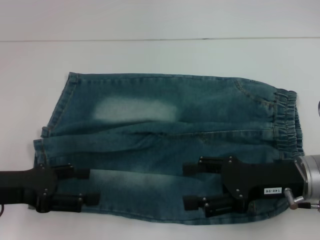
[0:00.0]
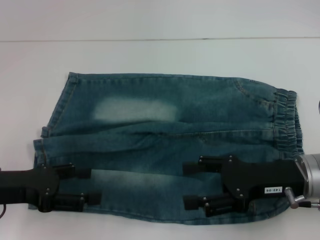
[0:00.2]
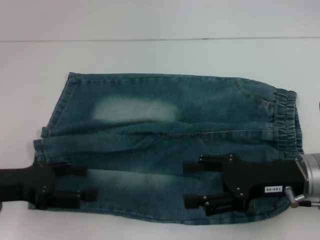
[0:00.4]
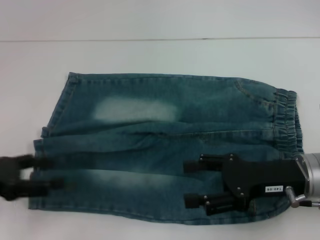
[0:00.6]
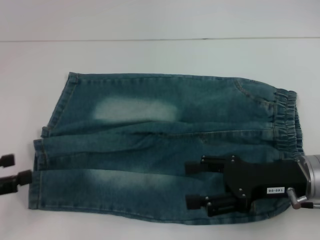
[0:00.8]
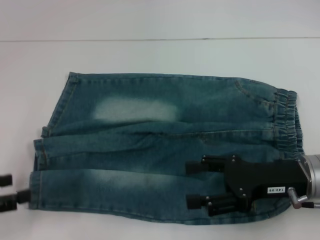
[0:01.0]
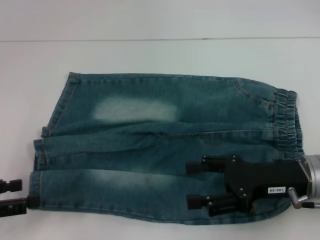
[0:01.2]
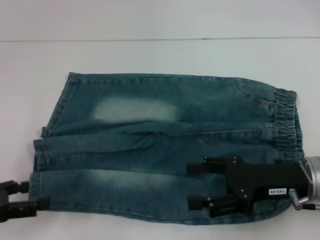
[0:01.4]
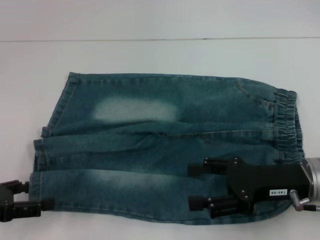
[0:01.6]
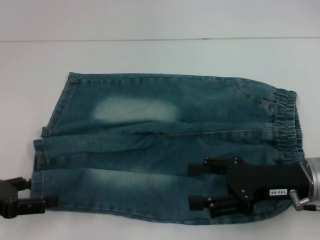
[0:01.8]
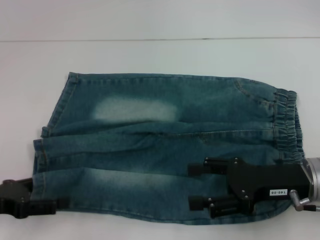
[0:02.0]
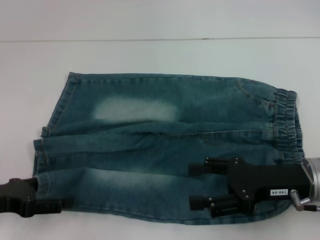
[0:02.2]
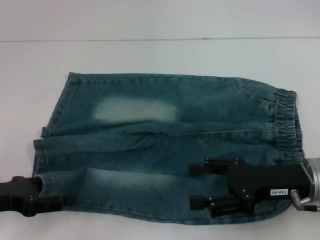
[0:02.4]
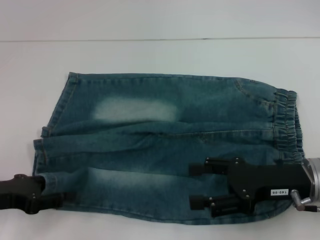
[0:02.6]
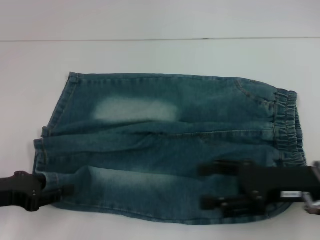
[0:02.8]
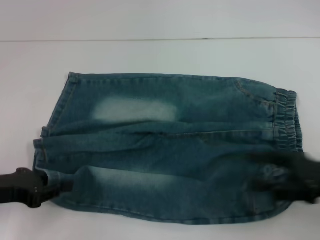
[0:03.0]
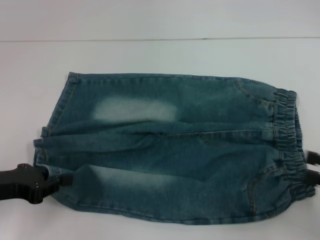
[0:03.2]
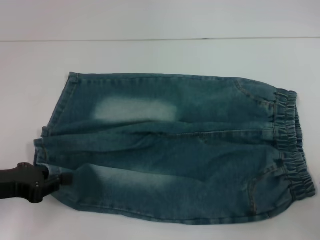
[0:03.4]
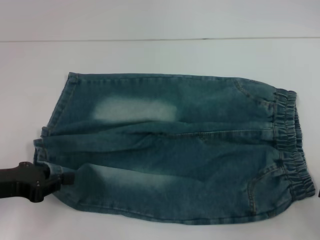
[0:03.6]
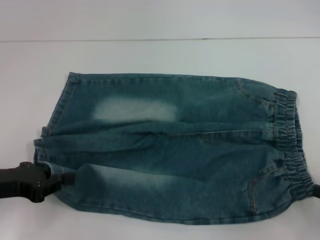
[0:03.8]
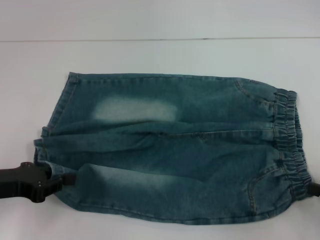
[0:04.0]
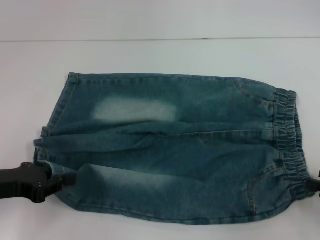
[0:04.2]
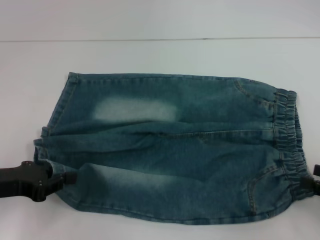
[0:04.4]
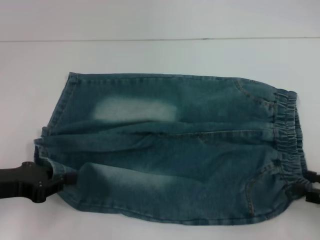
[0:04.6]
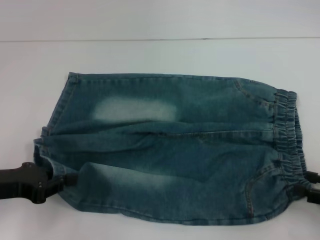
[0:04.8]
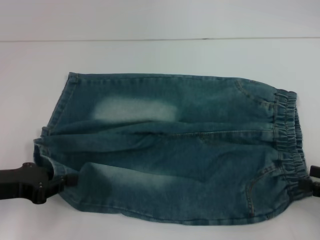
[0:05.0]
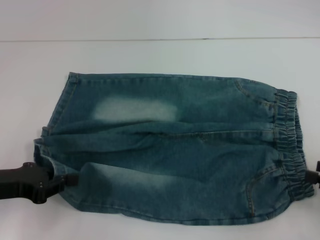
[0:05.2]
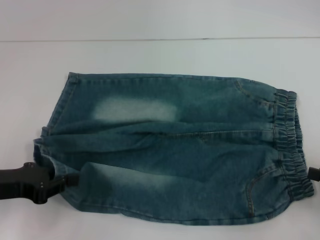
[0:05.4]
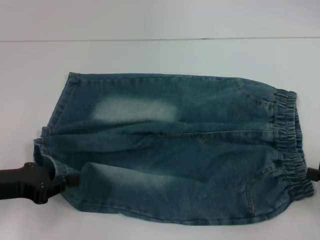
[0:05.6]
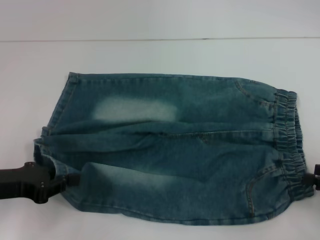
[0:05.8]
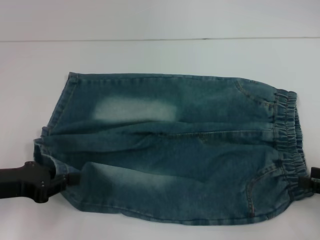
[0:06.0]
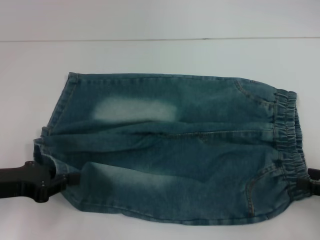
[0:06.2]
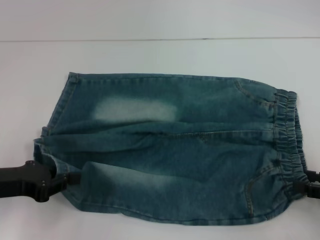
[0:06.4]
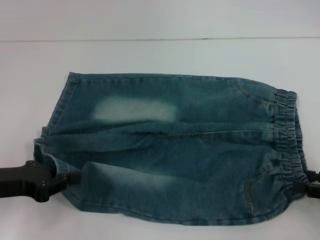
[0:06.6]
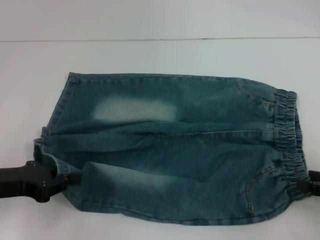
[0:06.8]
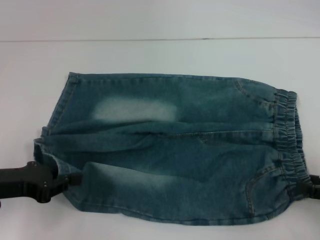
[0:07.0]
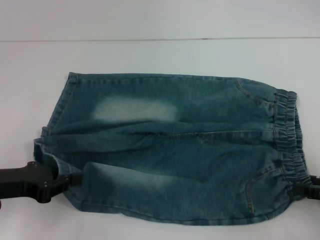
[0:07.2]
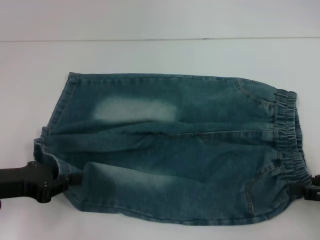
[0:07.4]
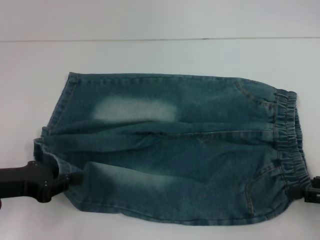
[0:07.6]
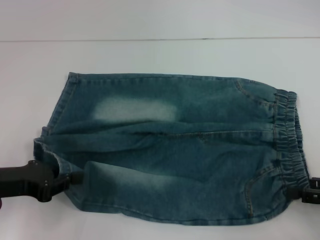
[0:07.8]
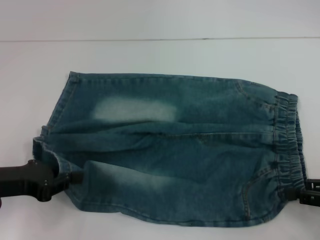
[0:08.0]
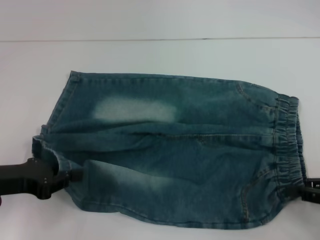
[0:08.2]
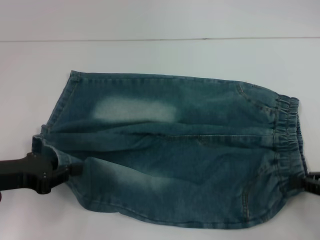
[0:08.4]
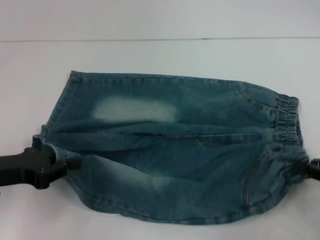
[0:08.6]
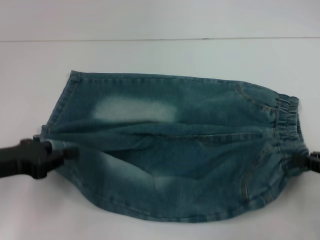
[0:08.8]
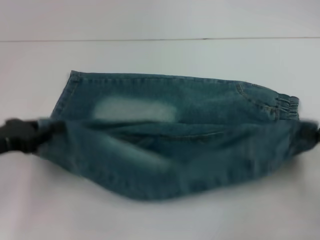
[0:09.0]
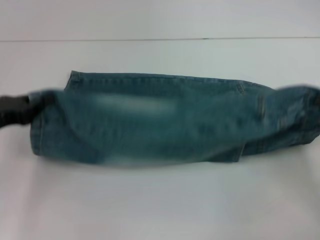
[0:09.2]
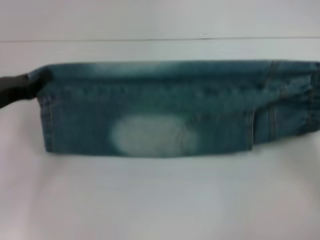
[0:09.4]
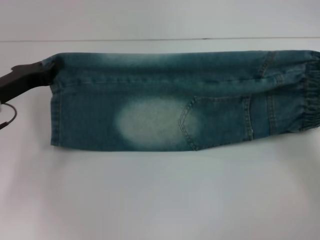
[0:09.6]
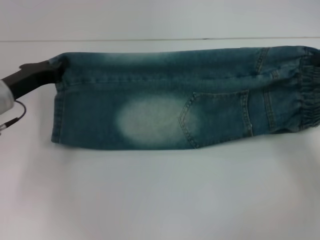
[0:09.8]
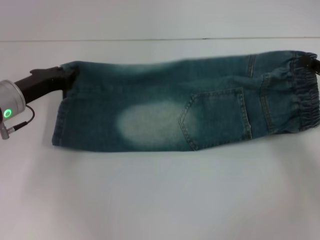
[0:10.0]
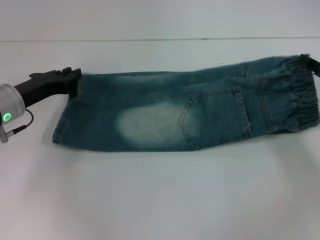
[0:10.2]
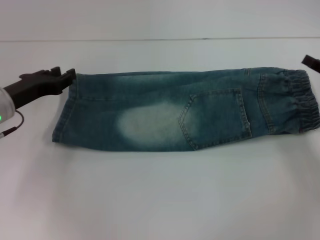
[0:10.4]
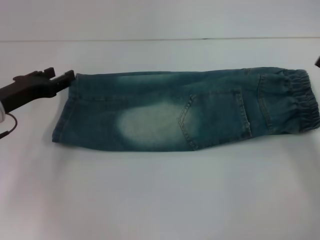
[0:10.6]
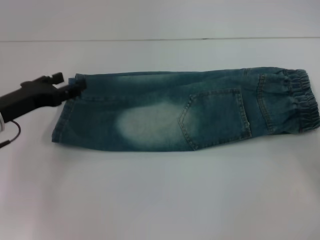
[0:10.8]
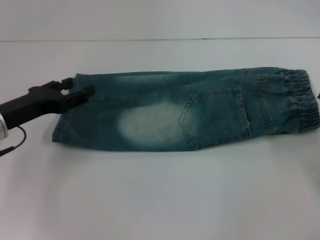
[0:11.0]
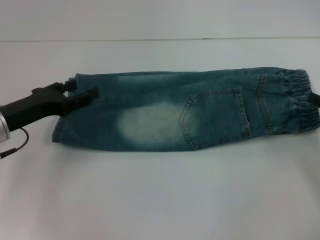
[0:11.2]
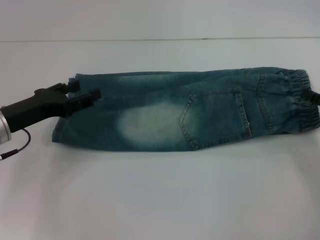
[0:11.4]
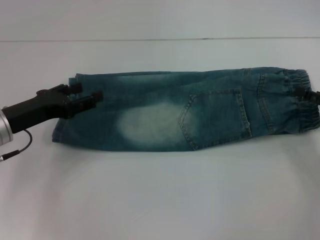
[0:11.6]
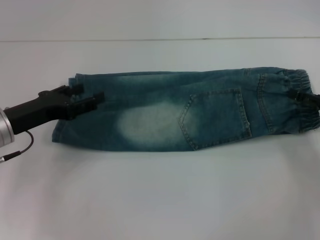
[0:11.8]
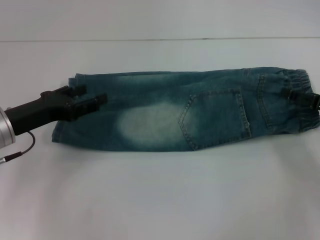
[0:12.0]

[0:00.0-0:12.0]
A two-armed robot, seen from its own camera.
Step, 0:00.0 to 0:03.0: Grab the lower left pant leg with your left hand.
Step, 0:03.2 to 0:06.8: Hold the lower right waistband with your right hand.
Step, 0:07.0 to 0:10.4: Fold upward with your right hand.
0:00.0 to 0:01.6: The left gripper shifts roughly 5 cm to the left.
0:01.6 to 0:03.0: The left gripper closes its fingers. Meanwhile the right gripper is displaced to the right by about 5 cm.
0:03.0 to 0:04.4: The right gripper shifts roughly 10 cm to the right.
0:04.4 to 0:07.6: There are only small adjustments of the grippers.
0:07.6 to 0:09.0: The right gripper closes up.
0:09.0 to 0:10.4: Both grippers travel together forward, roughly 10 cm.
0:10.4 to 0:12.0: The left gripper opens, while the right gripper opens up.

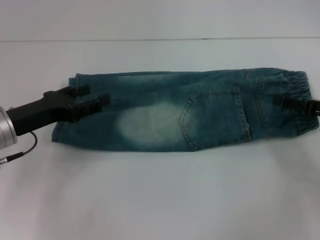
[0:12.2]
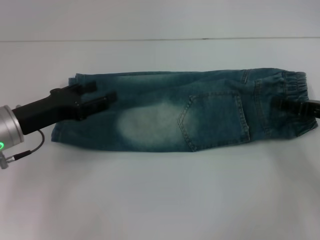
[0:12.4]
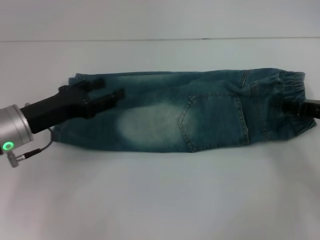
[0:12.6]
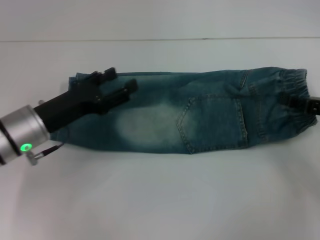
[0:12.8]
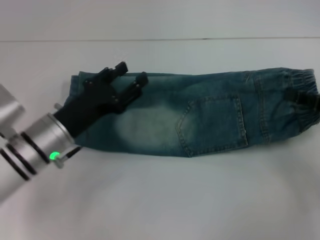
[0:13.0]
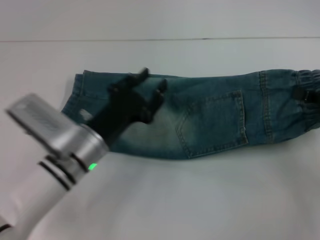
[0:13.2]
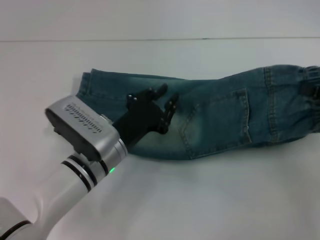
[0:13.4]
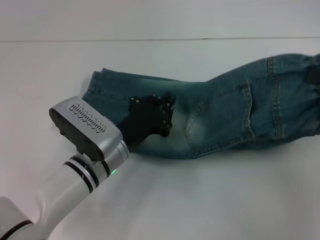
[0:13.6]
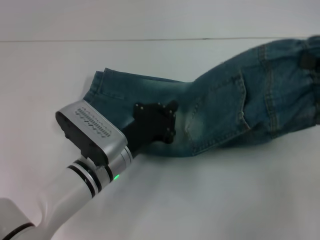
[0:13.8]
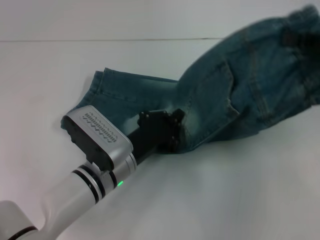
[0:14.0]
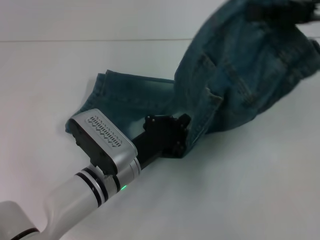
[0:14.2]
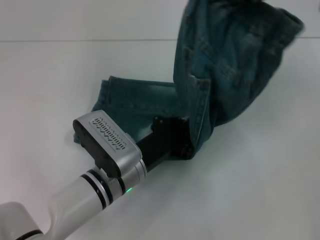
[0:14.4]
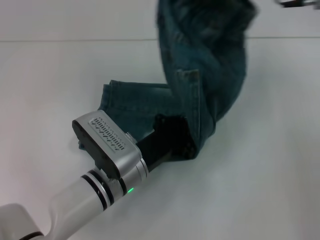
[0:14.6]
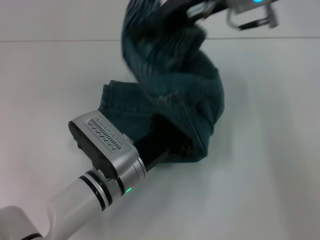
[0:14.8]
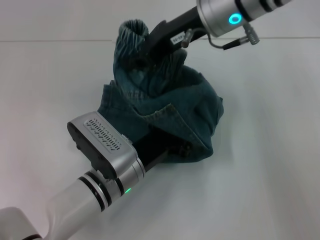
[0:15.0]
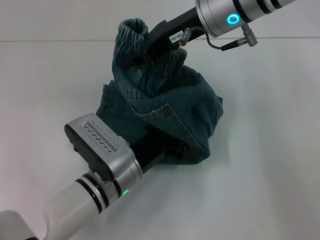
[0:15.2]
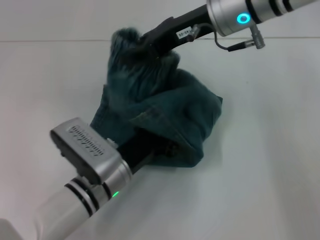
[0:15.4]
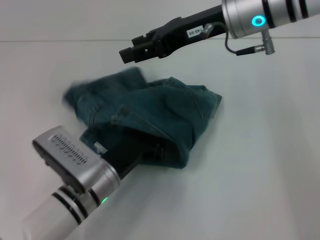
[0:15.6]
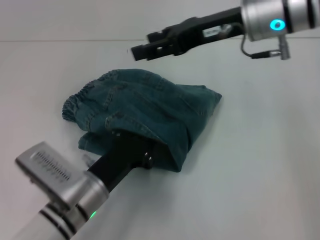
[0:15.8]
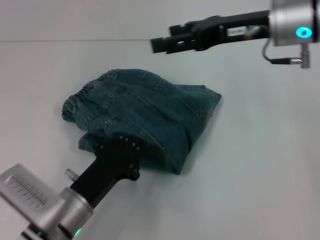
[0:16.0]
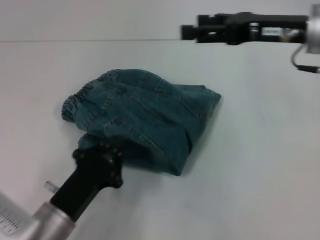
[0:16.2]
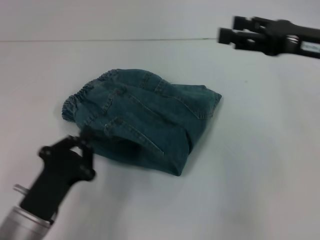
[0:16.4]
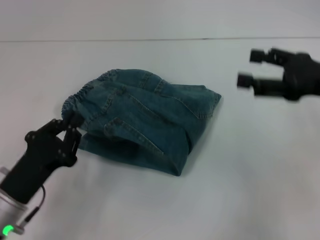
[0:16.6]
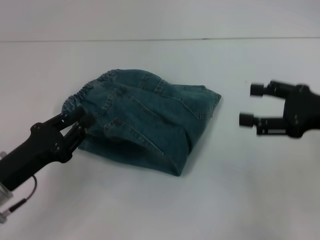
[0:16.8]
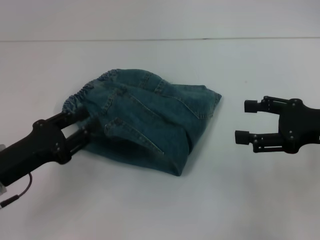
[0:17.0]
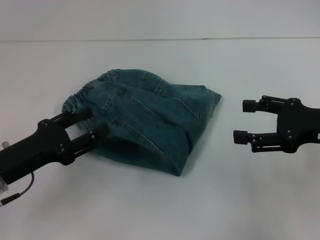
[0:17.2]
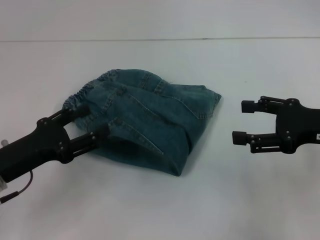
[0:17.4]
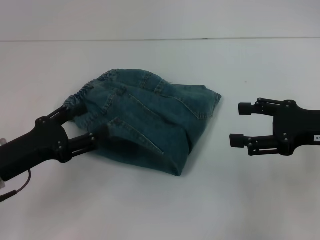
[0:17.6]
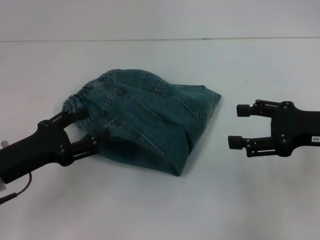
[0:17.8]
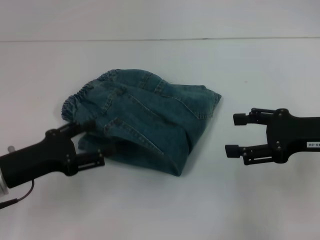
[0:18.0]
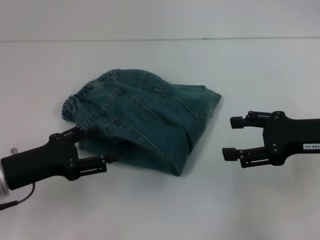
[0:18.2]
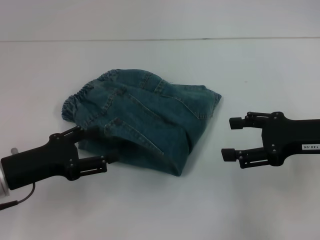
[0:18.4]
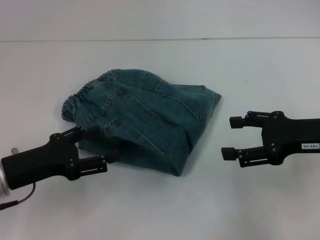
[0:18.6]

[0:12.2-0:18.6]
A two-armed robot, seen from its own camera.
Step, 0:12.4 to 0:16.0: Press the middle of the pants with your left hand.
Step, 0:16.2 to 0:16.6: Fold to the left with your right hand.
0:12.2 to 0:13.8: The right gripper moves upward, approximately 10 cm, and closes its fingers; the left gripper moves to the right and downward, about 15 cm, and closes up.
0:13.8 to 0:15.4: The right gripper heads to the left and forward, covering some 25 cm.
0:15.4 to 0:17.0: The right gripper shifts about 25 cm to the right, backward and downward, and opens its fingers; the left gripper goes roughly 15 cm to the left, and opens its fingers.
0:17.0 to 0:18.6: The left gripper opens its fingers.

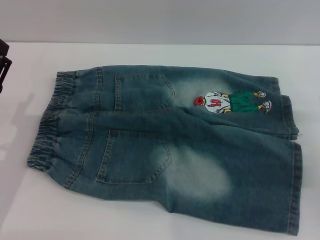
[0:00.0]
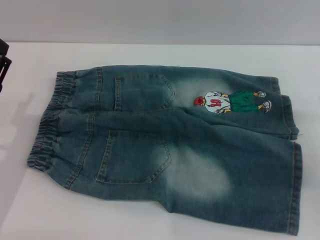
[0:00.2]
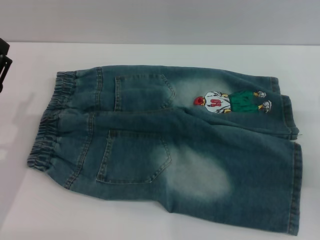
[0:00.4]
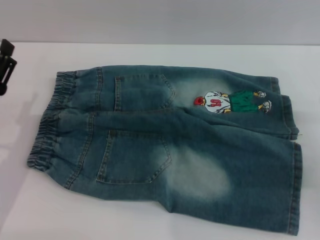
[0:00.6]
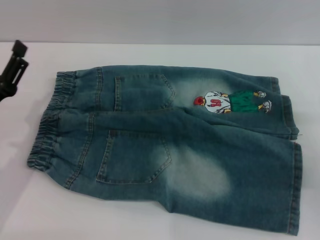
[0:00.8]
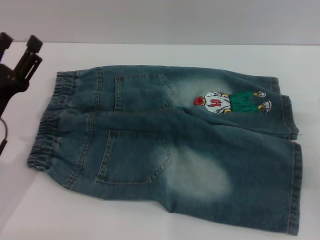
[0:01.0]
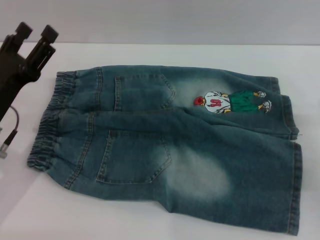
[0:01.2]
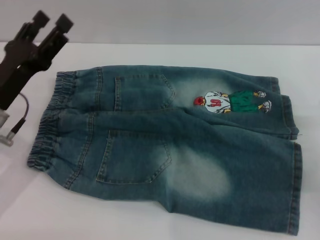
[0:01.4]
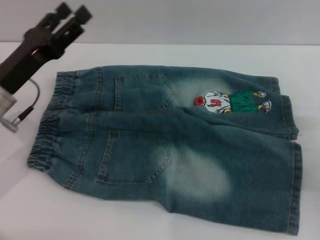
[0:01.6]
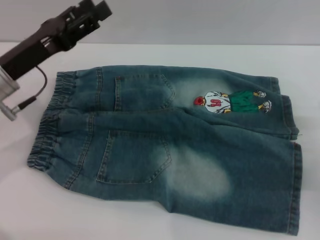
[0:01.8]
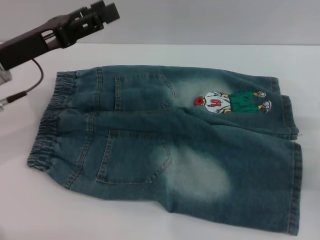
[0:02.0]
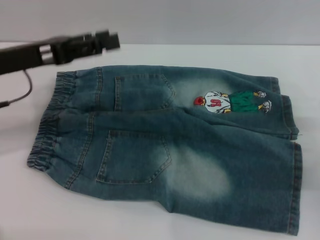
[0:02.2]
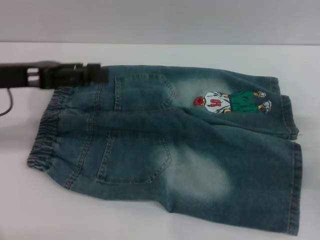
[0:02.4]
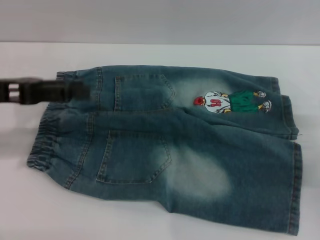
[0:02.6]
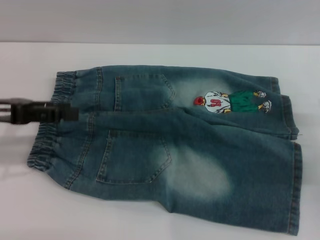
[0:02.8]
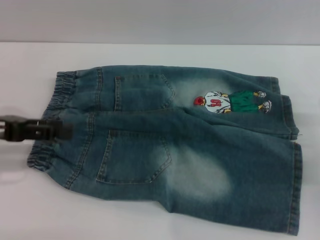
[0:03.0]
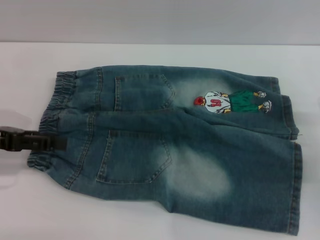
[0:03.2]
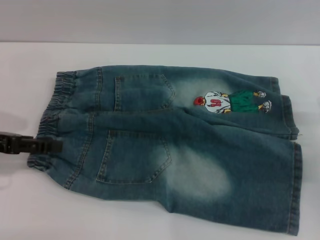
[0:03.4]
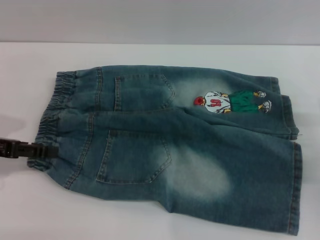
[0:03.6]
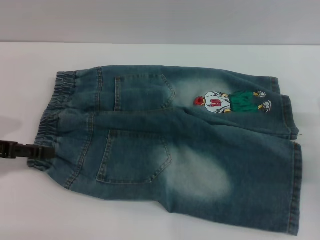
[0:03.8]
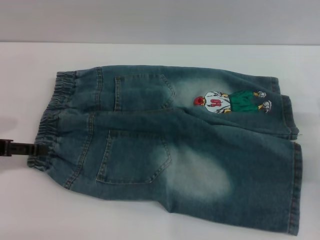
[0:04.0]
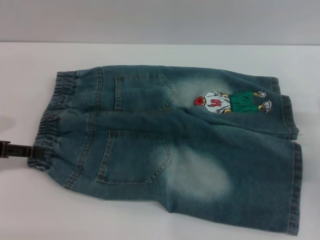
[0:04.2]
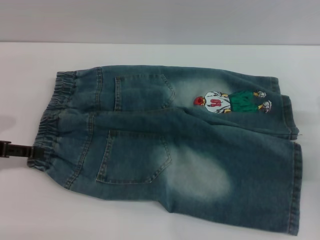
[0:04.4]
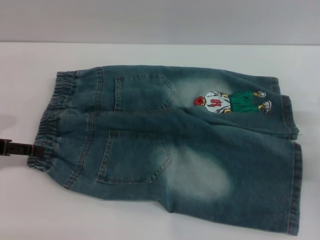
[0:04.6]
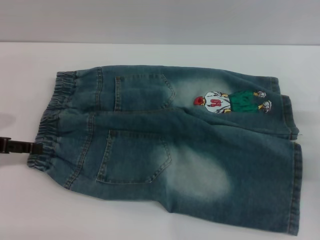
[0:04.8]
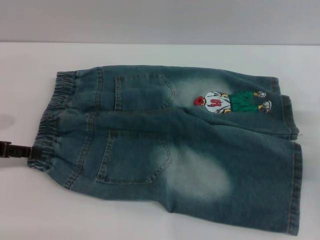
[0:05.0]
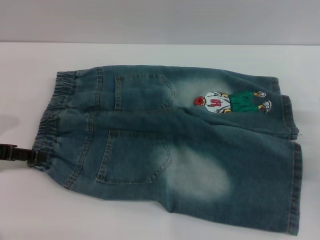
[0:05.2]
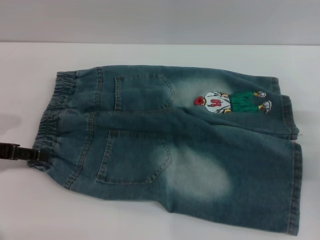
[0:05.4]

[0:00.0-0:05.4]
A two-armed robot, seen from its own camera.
0:00.0 to 0:01.4: The left gripper moves about 5 cm.
0:01.4 to 0:02.8: The left gripper shifts about 10 cm upward and to the left.
0:02.8 to 0:04.0: The left gripper ends up roughly 5 cm from where it was.
